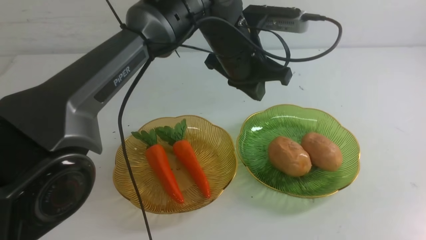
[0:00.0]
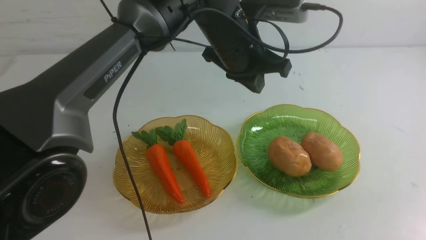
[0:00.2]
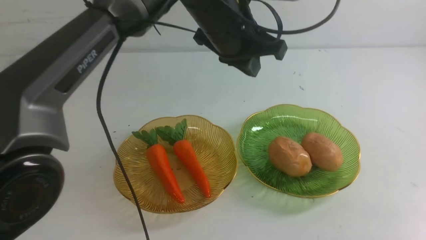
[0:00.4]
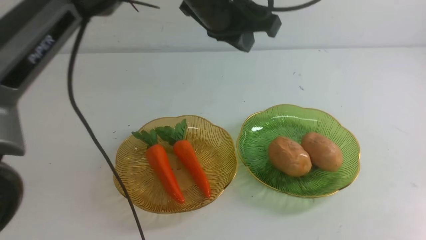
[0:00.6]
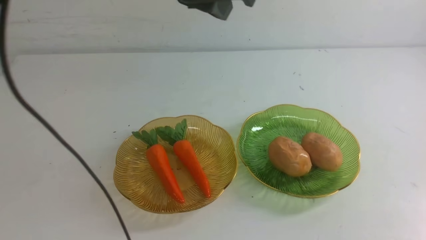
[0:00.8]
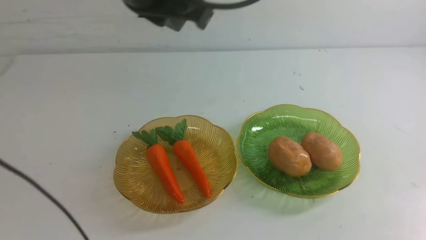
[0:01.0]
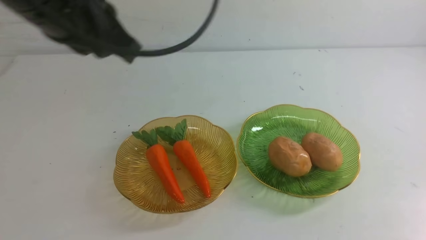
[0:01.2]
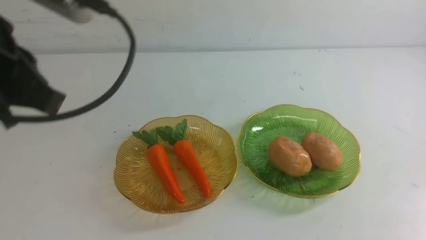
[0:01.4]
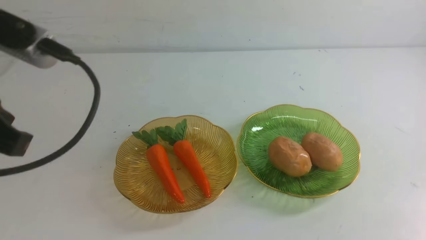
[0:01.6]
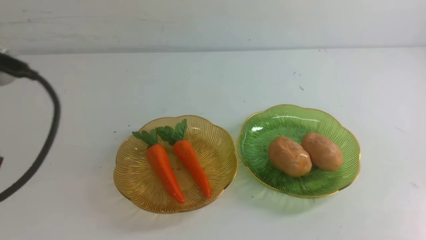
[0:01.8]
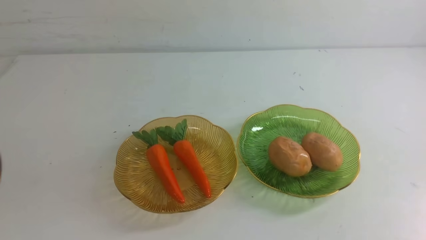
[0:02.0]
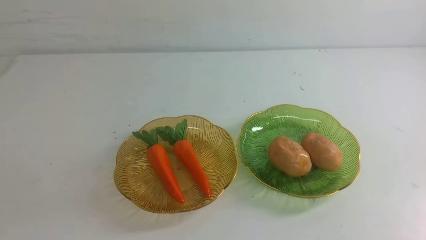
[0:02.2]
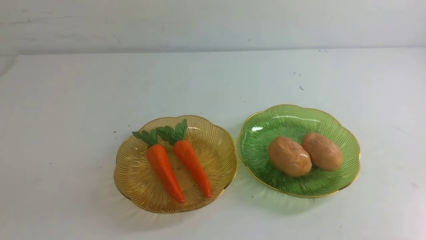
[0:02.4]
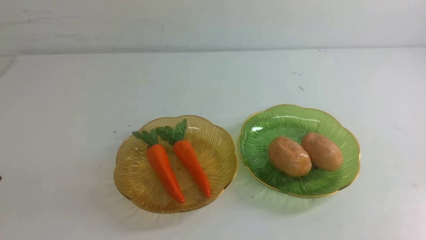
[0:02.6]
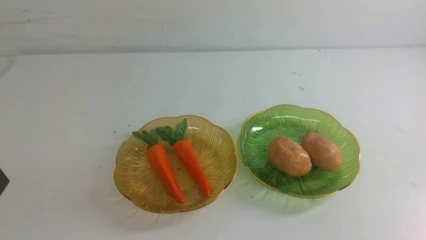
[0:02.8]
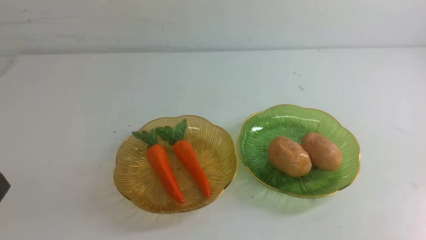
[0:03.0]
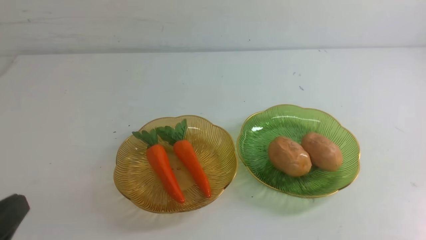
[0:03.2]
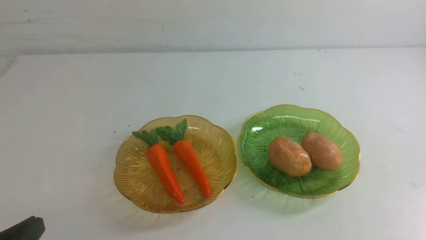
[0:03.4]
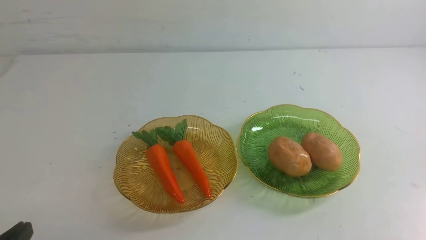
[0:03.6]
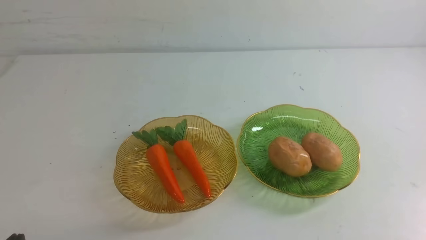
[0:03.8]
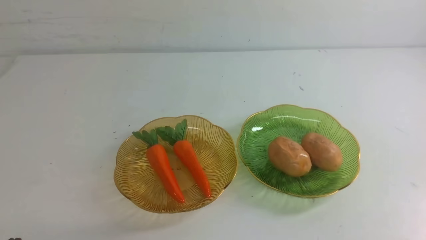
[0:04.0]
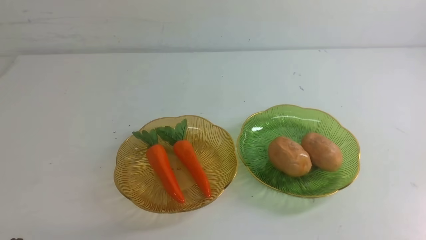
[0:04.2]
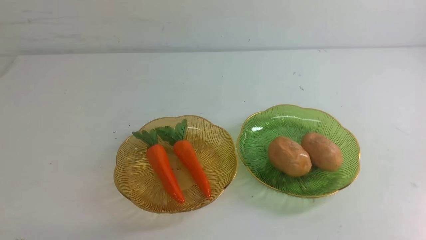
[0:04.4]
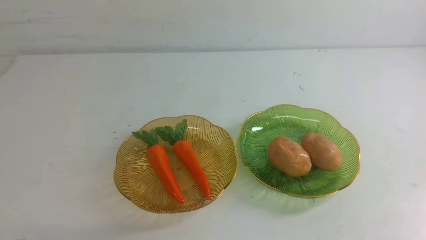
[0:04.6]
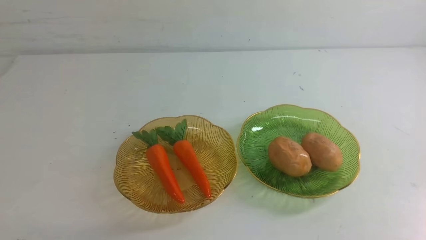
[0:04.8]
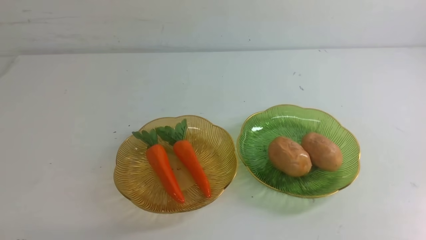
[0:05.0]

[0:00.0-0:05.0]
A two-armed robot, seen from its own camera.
0:00.0 to 0:01.6: The left gripper travels backward and to the left by roughly 40 cm.
0:01.6 to 0:03.4: The left gripper heads downward, covering some 15 cm.
0:03.4 to 0:05.0: Both grippers stay about where they are.
